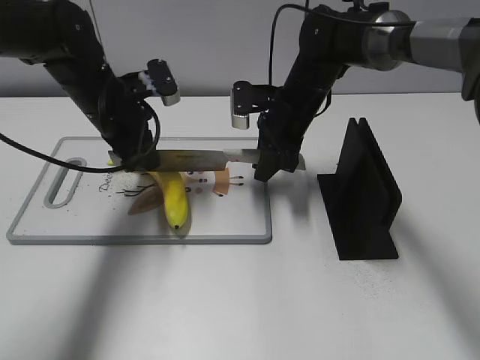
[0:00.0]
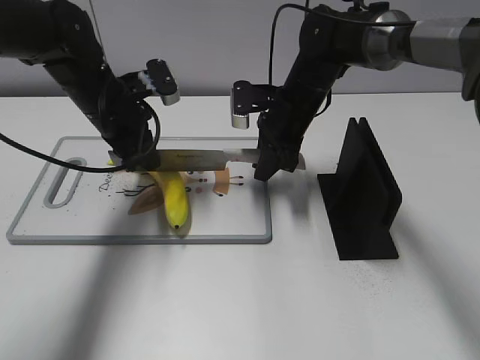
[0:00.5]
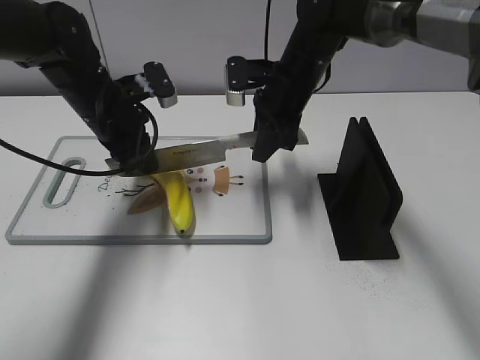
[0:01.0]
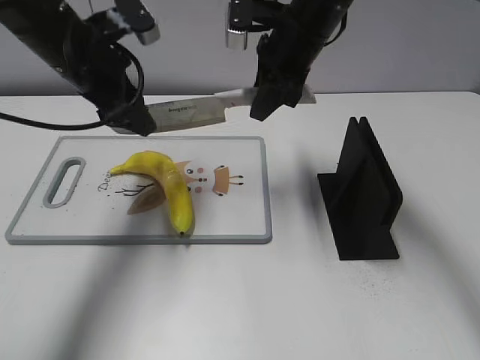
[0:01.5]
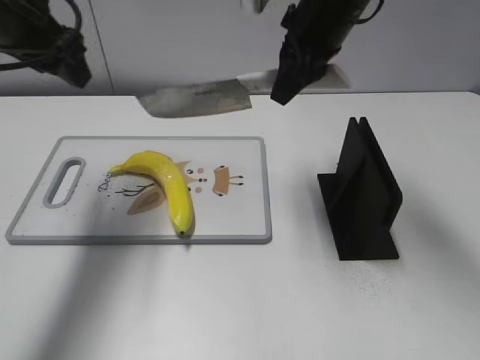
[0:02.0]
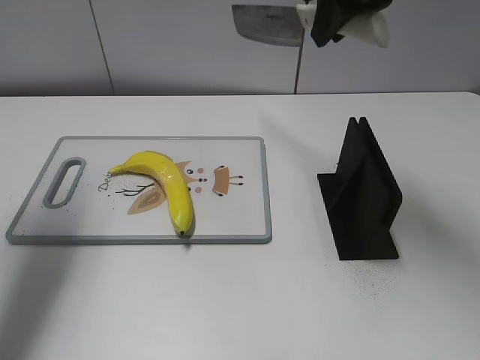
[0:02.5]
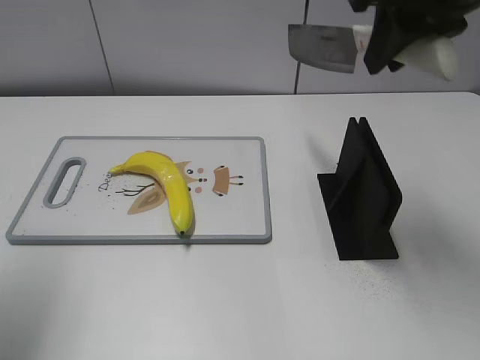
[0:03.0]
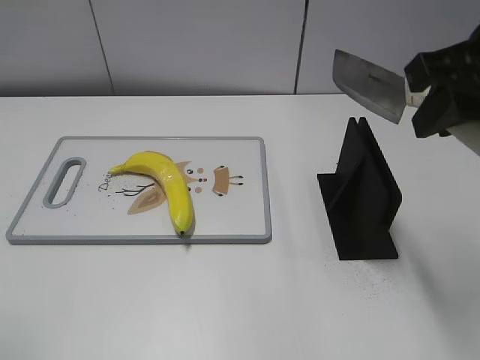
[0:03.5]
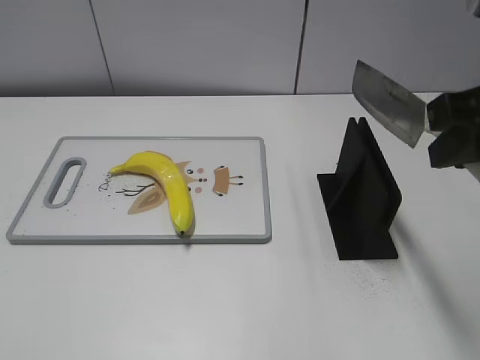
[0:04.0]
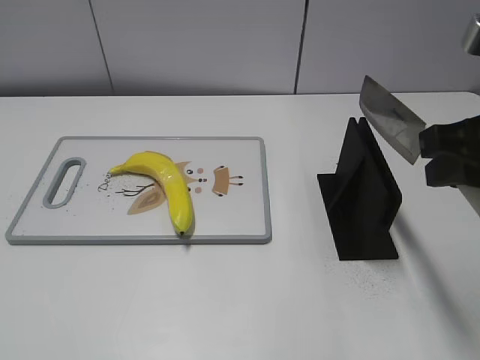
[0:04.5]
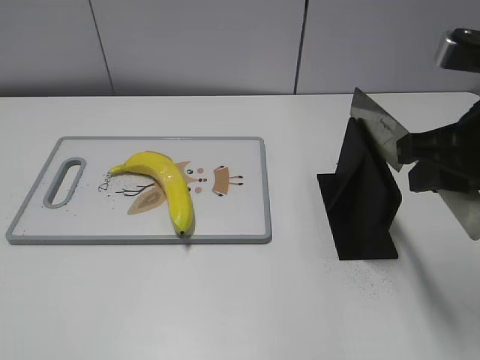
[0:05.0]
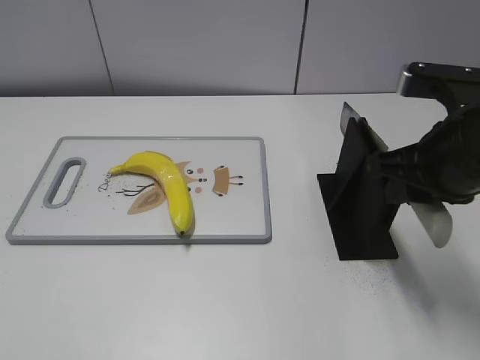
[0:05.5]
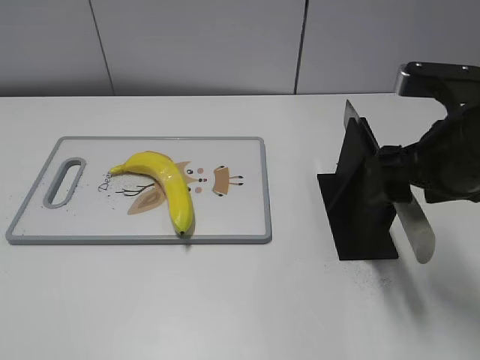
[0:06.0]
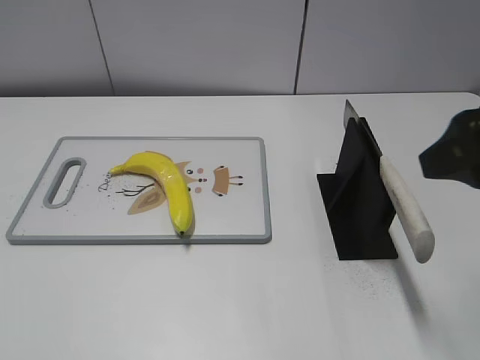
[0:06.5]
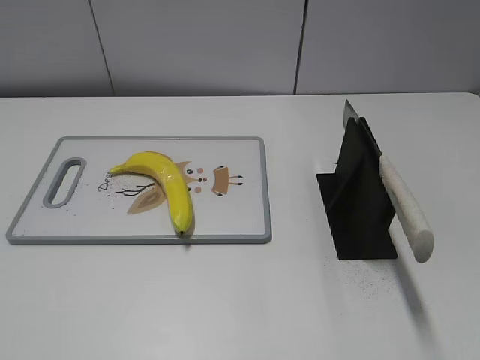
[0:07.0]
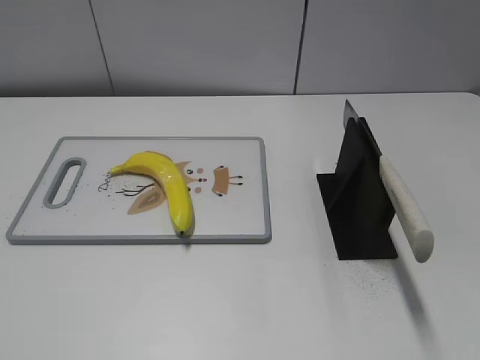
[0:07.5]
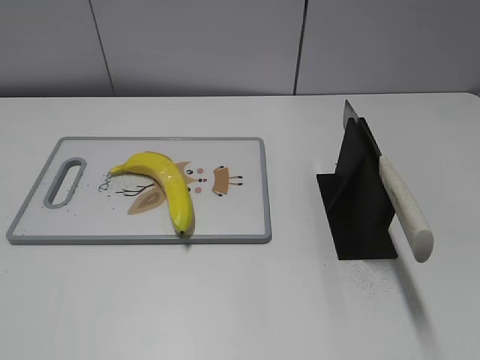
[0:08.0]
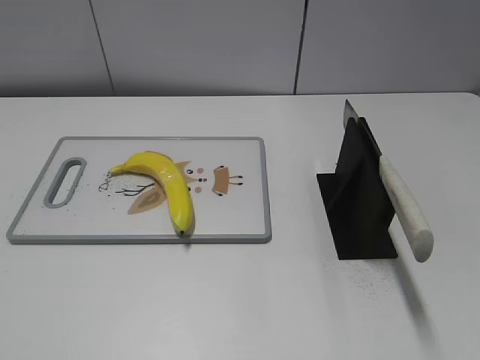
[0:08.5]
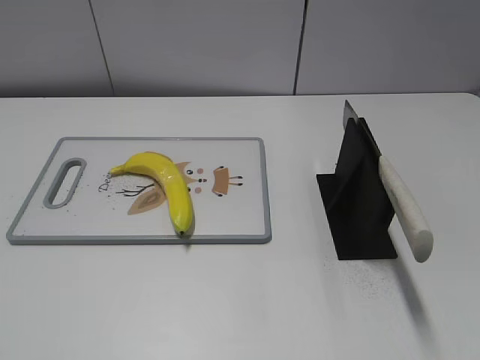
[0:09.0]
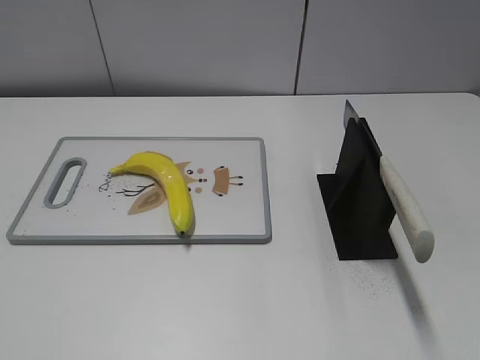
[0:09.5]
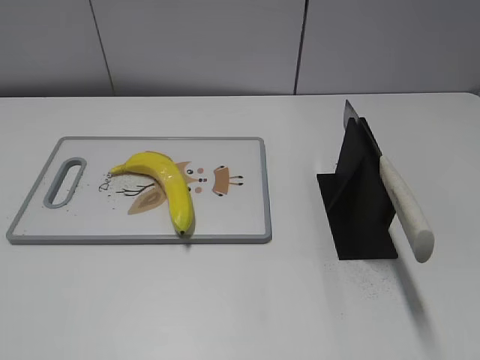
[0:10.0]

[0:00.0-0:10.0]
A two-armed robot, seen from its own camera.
Task of the whole recording: cut plastic banana.
Step, 0:01.0 to 0:02.5: Cut the banana with your right hand.
Step, 0:03.5 to 0:04.5: Lift the knife with your right hand.
Step, 0:05.0 to 0:10.0: Place the knife on the storage rack with your right hand.
0:00.0 to 0:02.0: The right gripper heads upward, covering about 15 cm. The left gripper goes roughly 15 cm upward and to the left, and opens up.
0:02.0 to 0:04.0: The left gripper heads backward, covering approximately 35 cm; the right gripper shifts some 25 cm backward and to the right.
0:04.0 to 0:06.0: The right gripper shifts about 10 cm downward, and opens.
0:06.0 to 0:08.0: The right gripper goes roughly 25 cm backward and to the right.
